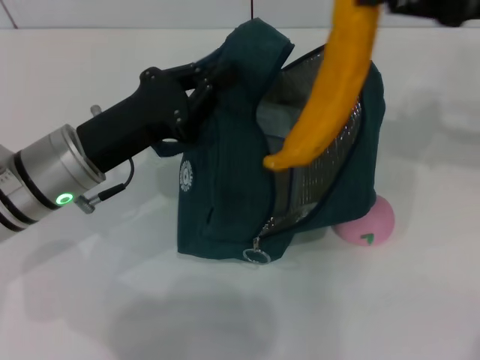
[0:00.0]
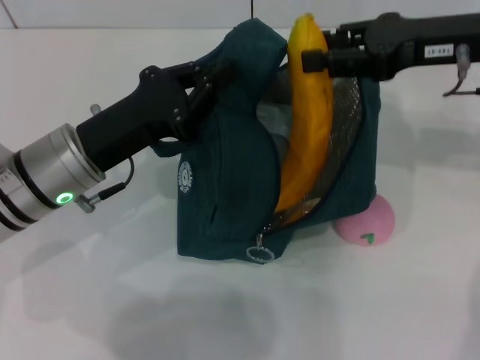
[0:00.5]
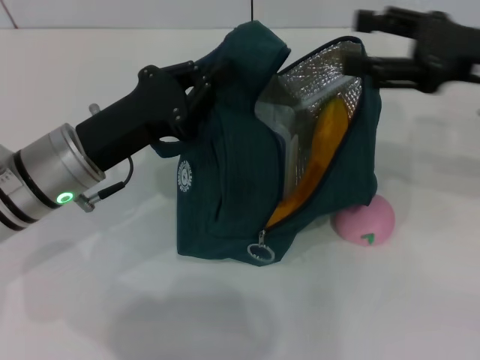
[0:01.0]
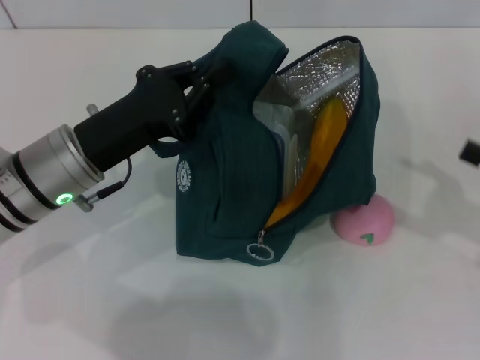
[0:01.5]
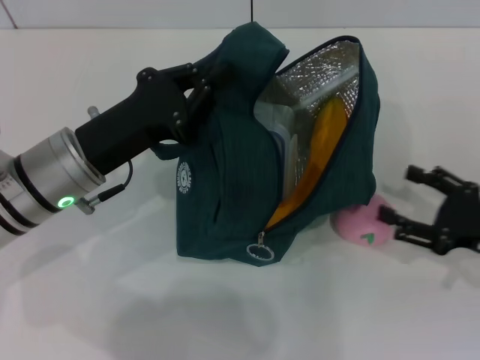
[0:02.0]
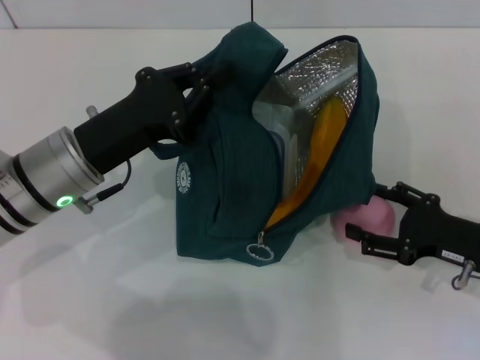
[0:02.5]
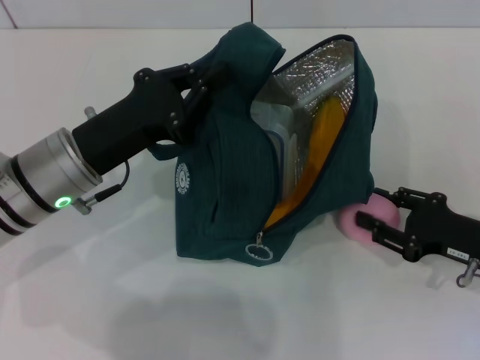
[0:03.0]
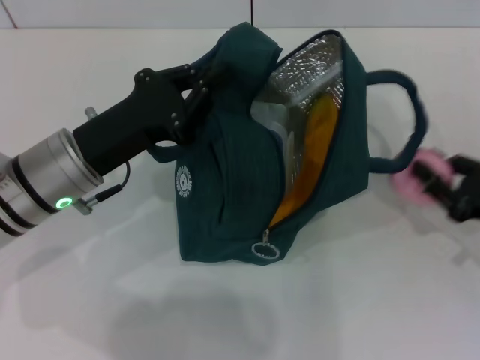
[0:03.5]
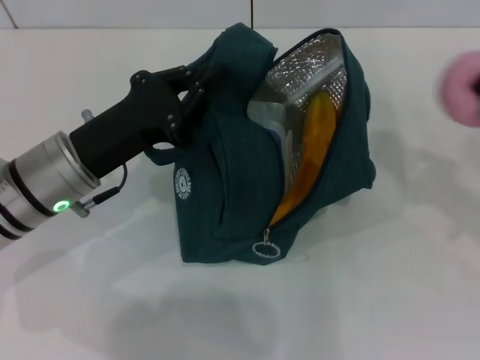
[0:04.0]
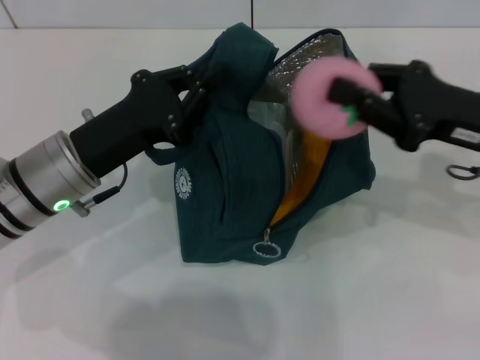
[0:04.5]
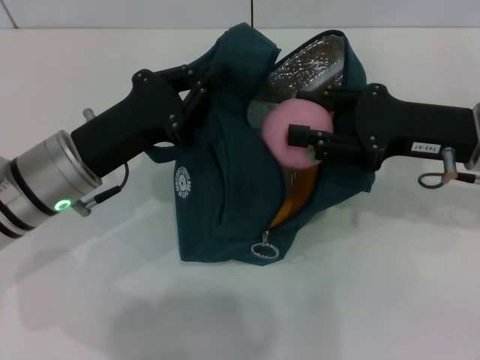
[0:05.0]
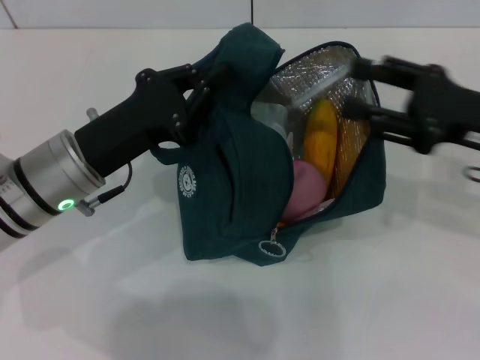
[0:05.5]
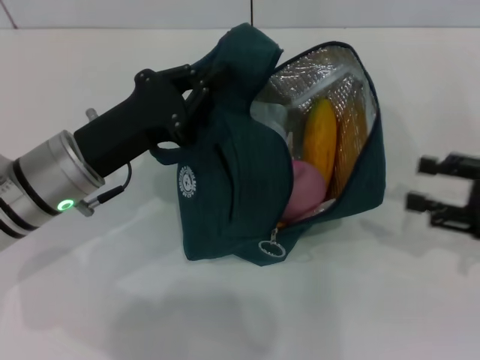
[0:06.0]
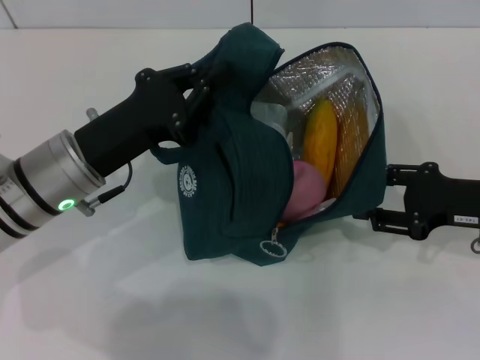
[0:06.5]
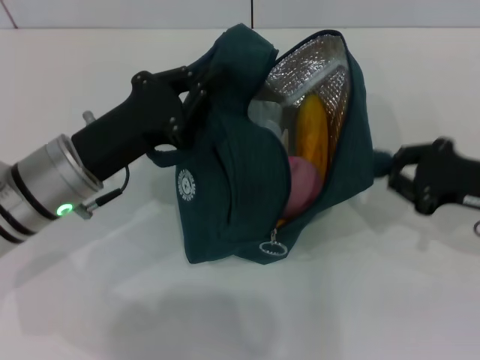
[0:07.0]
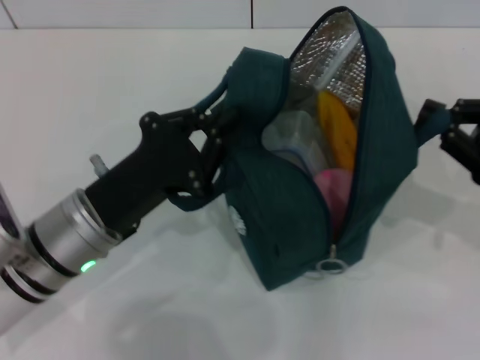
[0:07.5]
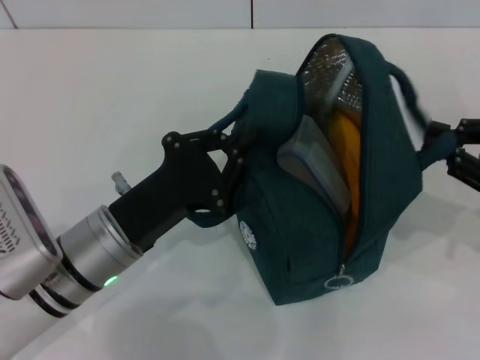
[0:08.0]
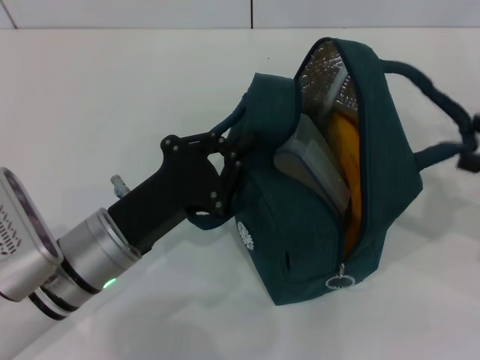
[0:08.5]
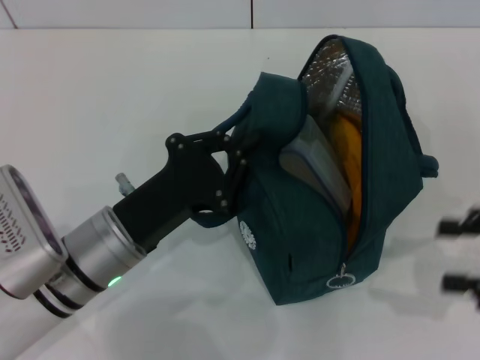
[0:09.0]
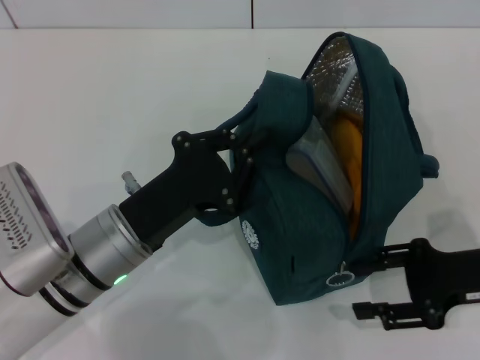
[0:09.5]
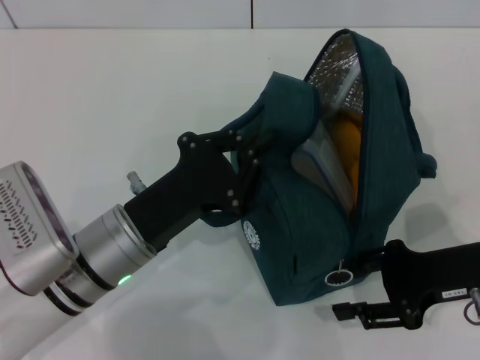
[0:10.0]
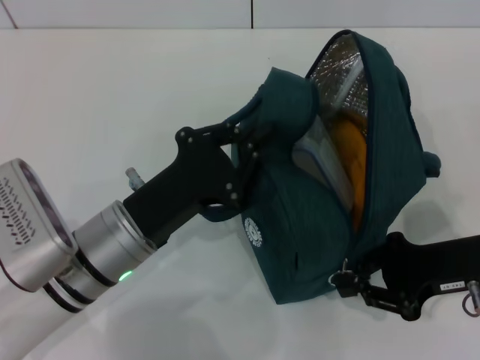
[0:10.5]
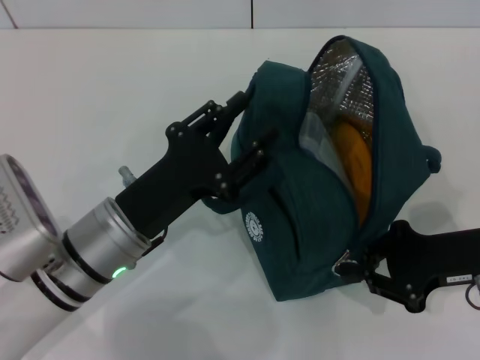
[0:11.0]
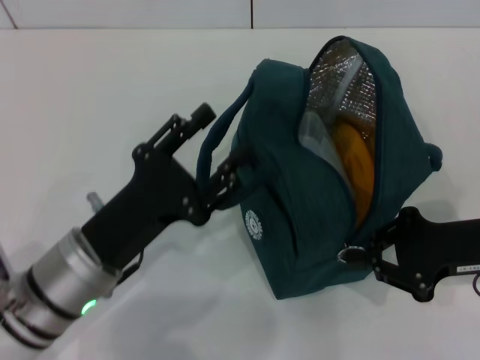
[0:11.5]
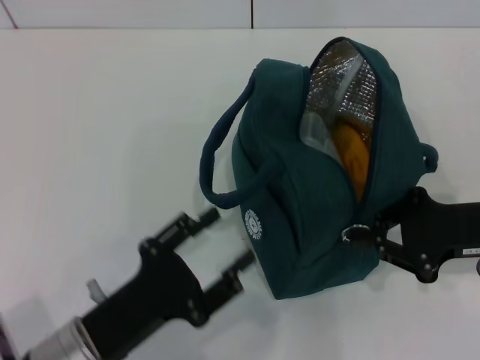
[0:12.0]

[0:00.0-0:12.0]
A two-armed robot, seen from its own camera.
Step, 0:01.5 to 0:03.0: Grab the peach with your right hand.
Step, 0:05.5 to 0:08.5: Hold the lunch bag with your right hand.
Step, 0:09.0 to 0:11.5: Hold the lunch bag with your left hand.
0:00.0 to 0:02.0: The right gripper heads downward and backward, covering approximately 25 cm, and opens.
0:02.0 to 0:04.0: The right gripper closes its fingers.
0:04.0 to 0:06.0: The right gripper reaches approximately 10 cm to the left, then returns, and opens.
0:06.0 to 0:08.0: The right gripper closes its fingers. The left gripper moves backward, some 5 cm.
0:08.0 to 0:10.0: The right gripper moves to the left and downward, roughly 10 cm, and opens up.
0:10.0 to 0:12.0: The left gripper goes about 10 cm backward, and opens up. The right gripper closes up.

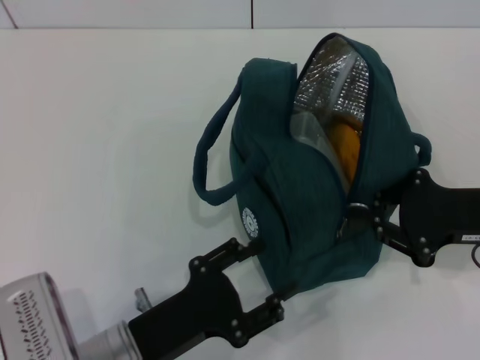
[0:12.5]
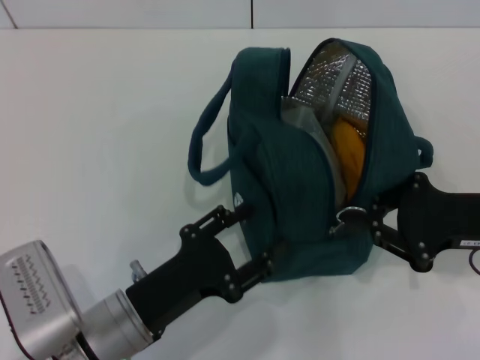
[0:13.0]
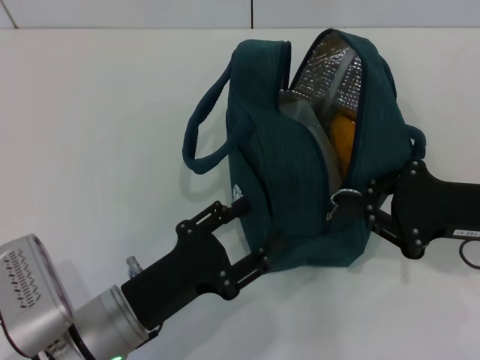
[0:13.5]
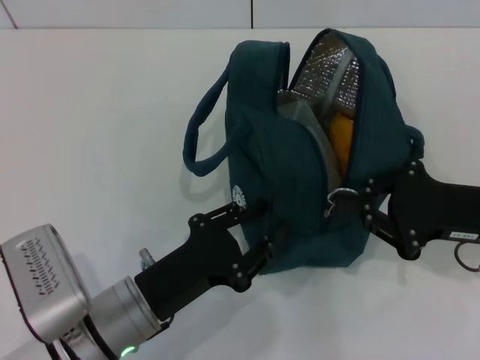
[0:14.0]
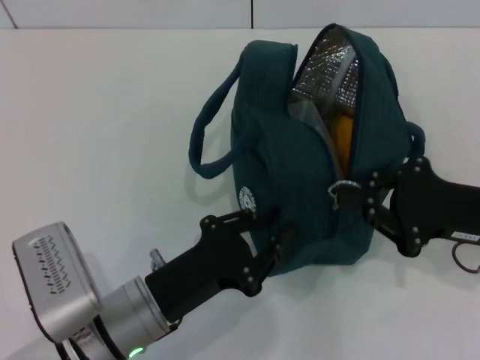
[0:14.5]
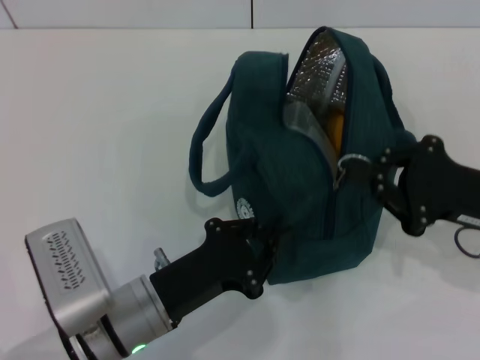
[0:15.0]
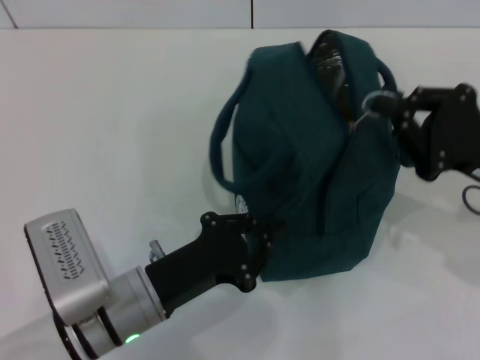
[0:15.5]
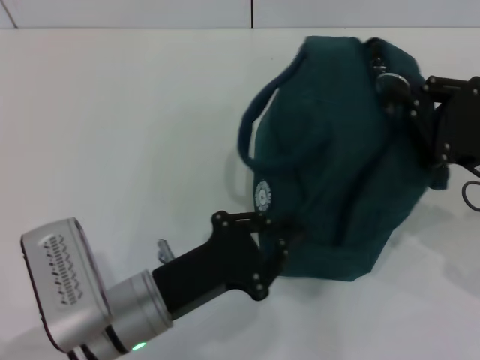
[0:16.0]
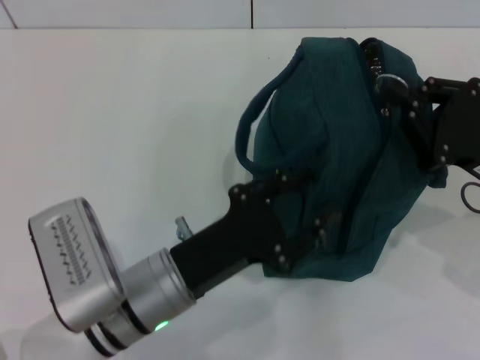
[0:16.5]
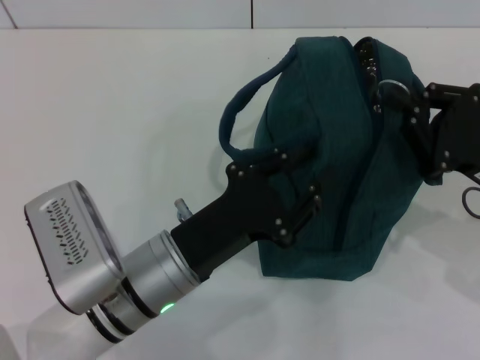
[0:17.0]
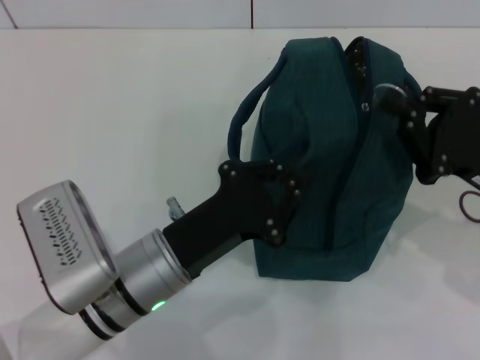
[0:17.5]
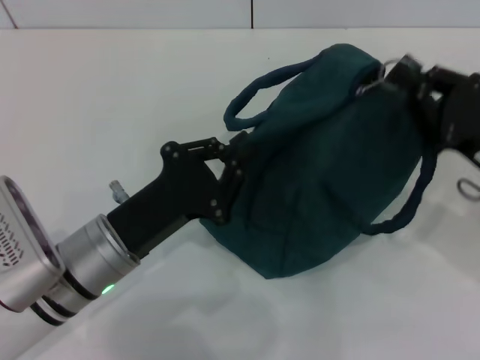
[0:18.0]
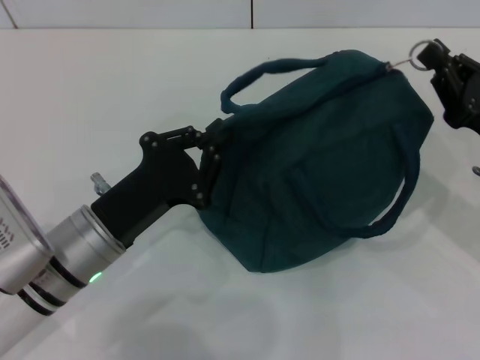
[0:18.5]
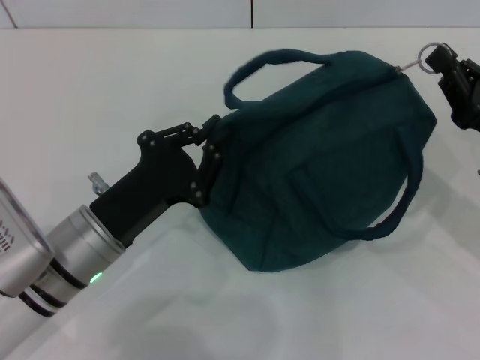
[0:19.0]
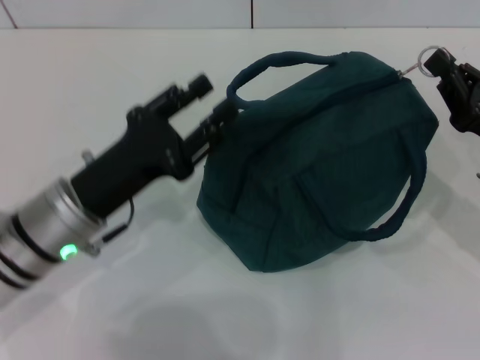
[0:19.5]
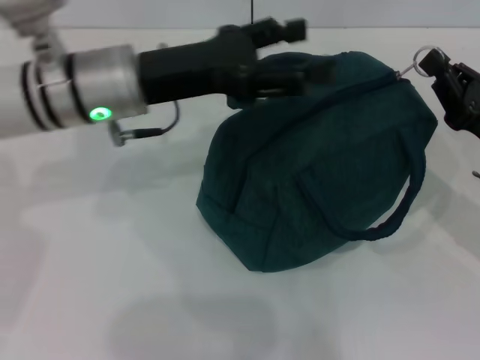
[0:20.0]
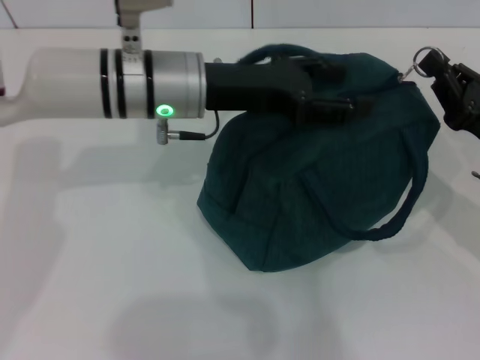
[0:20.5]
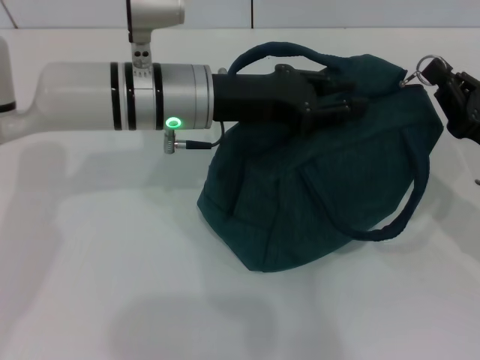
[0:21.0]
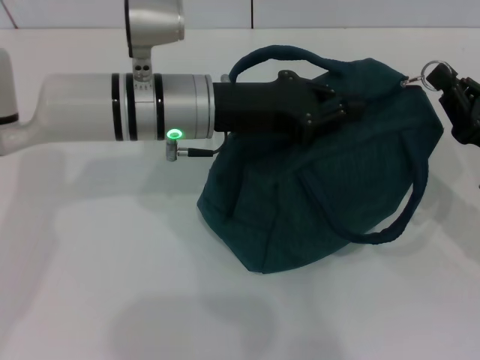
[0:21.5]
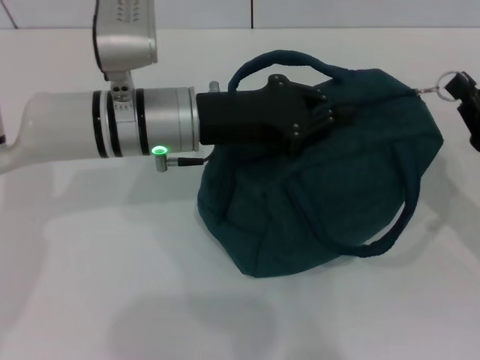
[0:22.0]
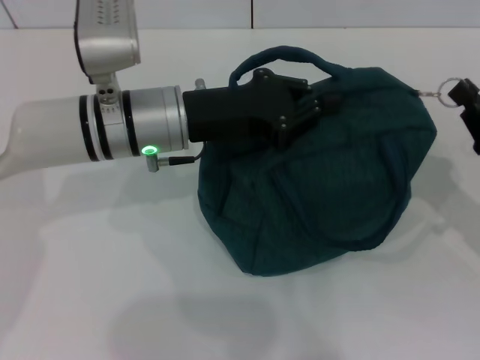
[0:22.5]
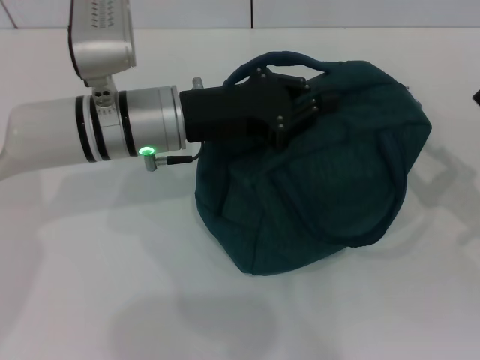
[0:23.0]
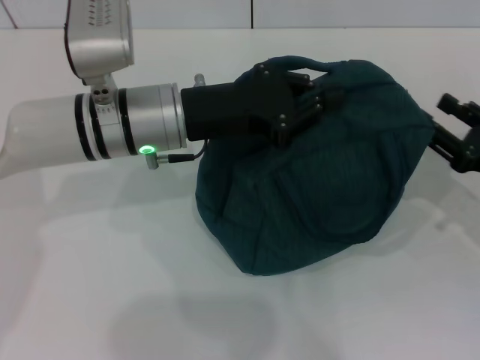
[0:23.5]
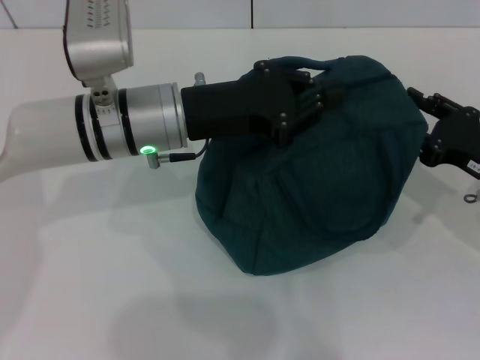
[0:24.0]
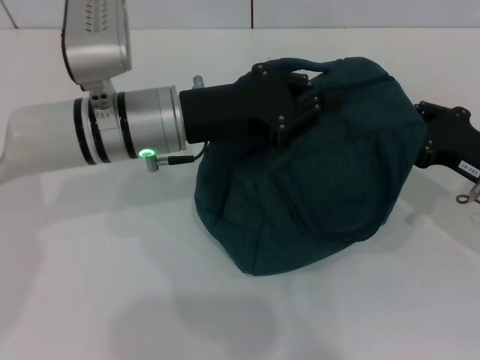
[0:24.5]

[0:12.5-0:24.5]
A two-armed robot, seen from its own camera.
0:12.5 to 0:14.5: The left gripper closes its fingers.
0:16.5 to 0:18.5: The left gripper goes roughly 5 cm to the left.
0:18.5 to 0:20.5: The left gripper shifts about 20 cm forward, upward and to the right, and opens its fingers.
0:20.5 to 0:22.5: The left gripper closes.
0:22.5 to 0:24.5: The right gripper opens, then closes once more.

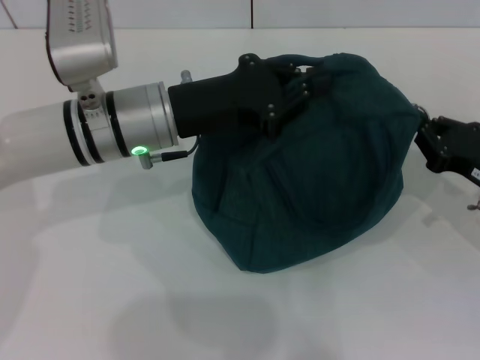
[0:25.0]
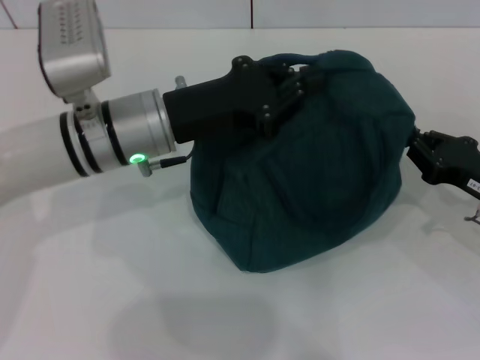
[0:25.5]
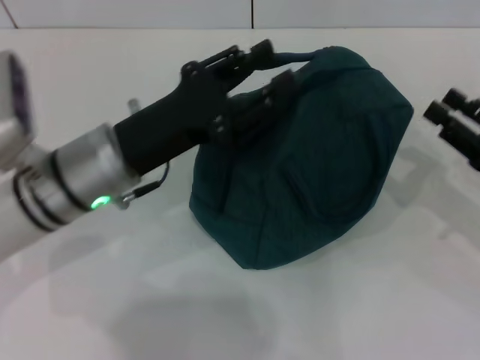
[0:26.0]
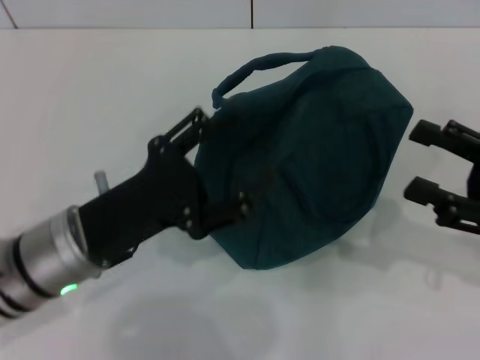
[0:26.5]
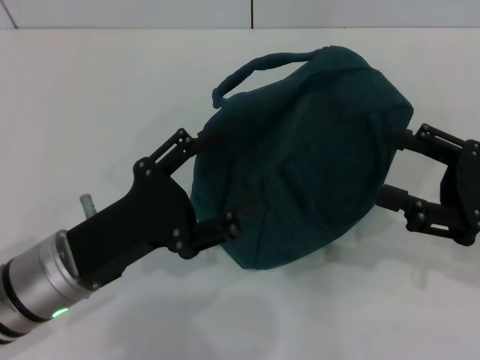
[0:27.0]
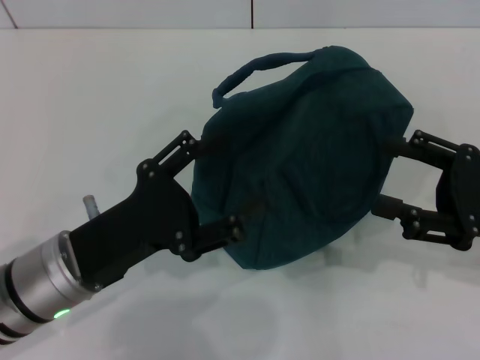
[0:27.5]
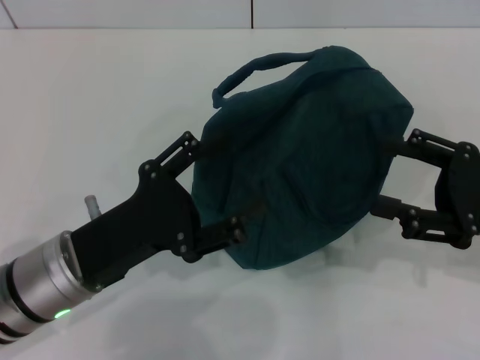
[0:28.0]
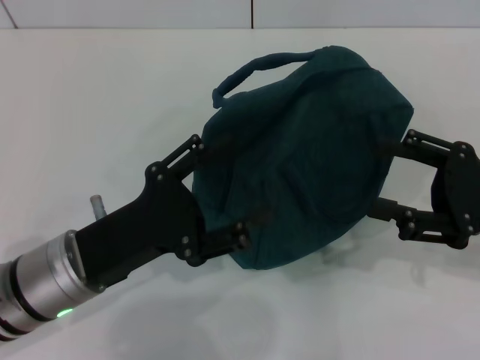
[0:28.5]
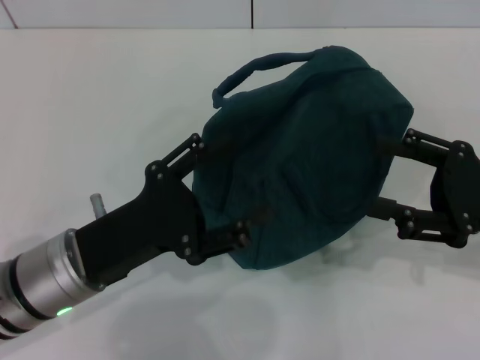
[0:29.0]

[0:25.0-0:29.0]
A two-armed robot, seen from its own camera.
0:25.0 to 0:27.0: The left gripper shifts roughly 15 cm backward, to the left and downward, and opens its fingers. The right gripper is displaced upward by some 5 cm, and opens its fingers.
0:27.0 to 0:29.0: The grippers make only small movements.
